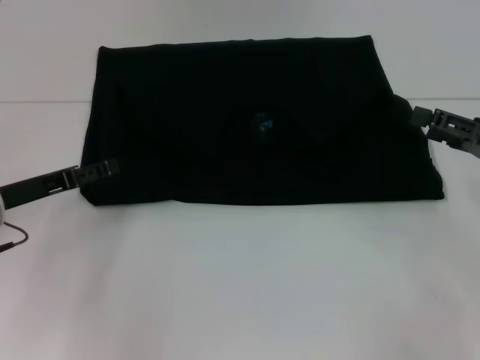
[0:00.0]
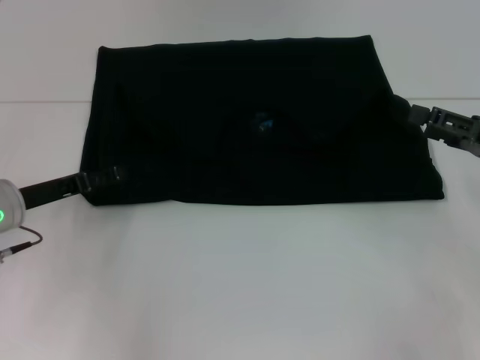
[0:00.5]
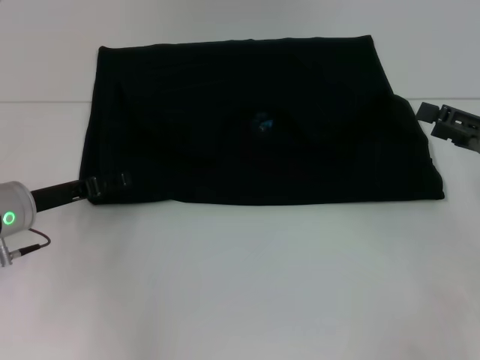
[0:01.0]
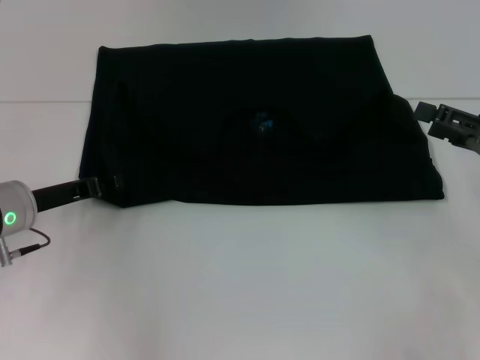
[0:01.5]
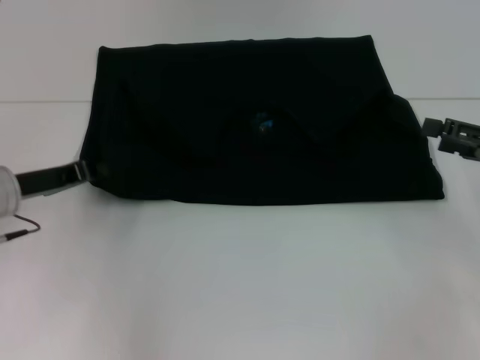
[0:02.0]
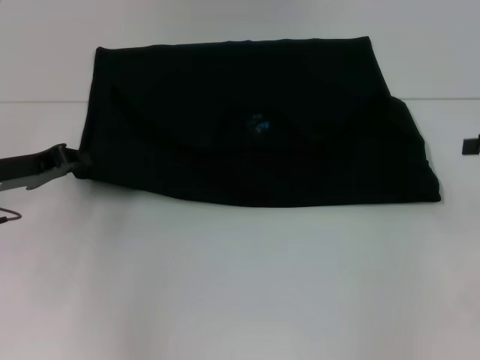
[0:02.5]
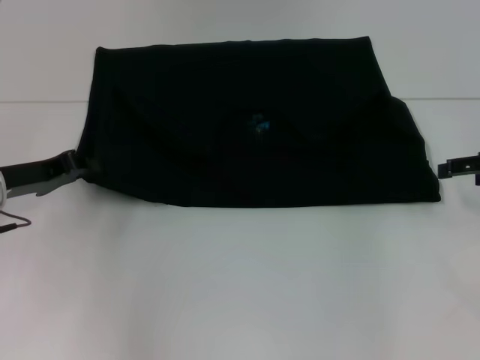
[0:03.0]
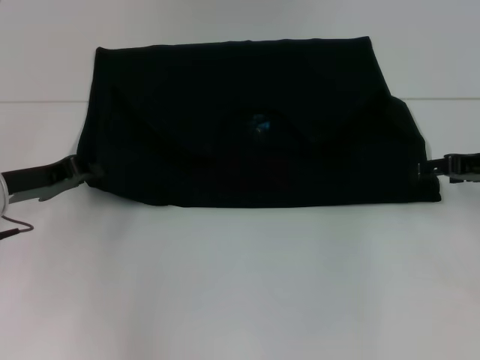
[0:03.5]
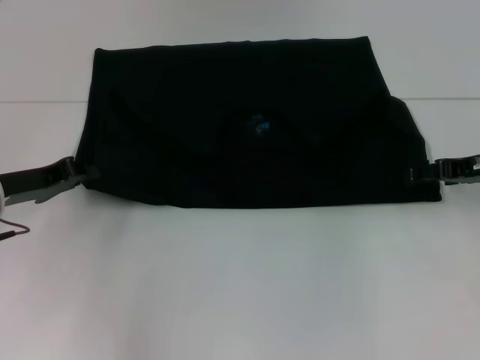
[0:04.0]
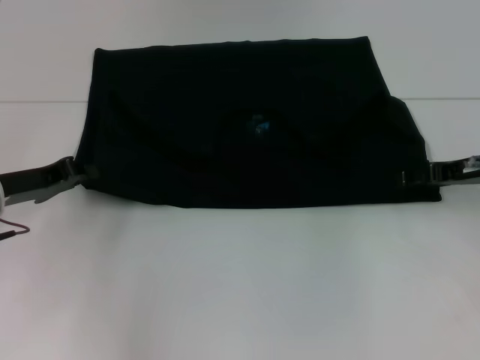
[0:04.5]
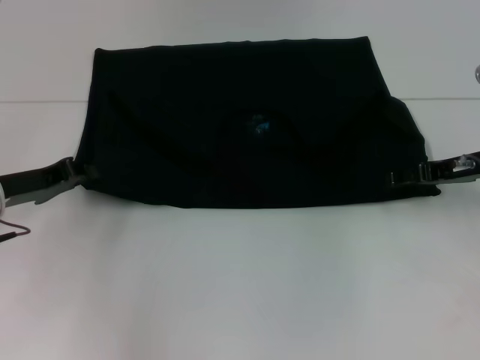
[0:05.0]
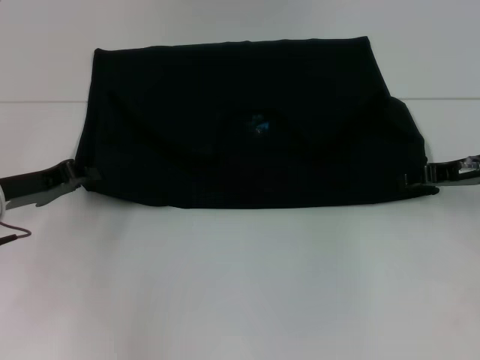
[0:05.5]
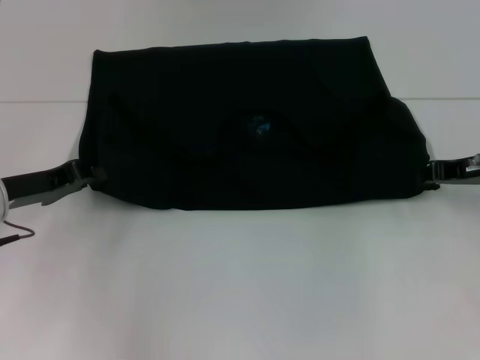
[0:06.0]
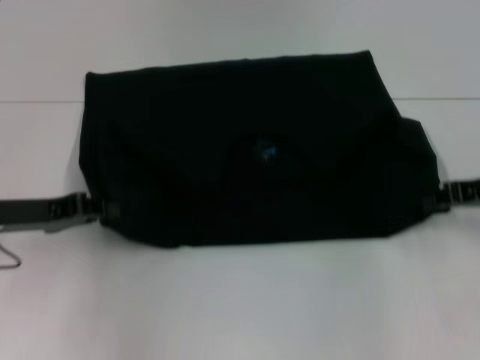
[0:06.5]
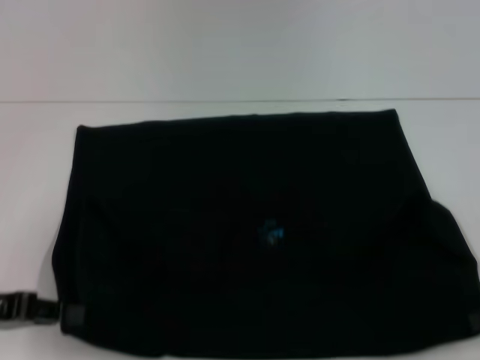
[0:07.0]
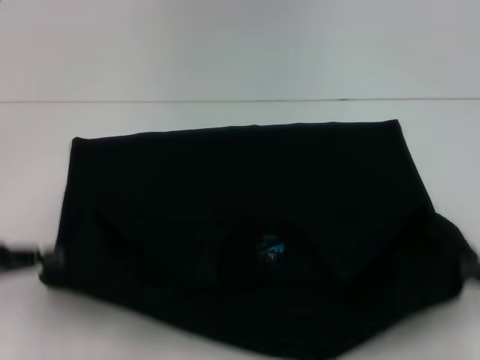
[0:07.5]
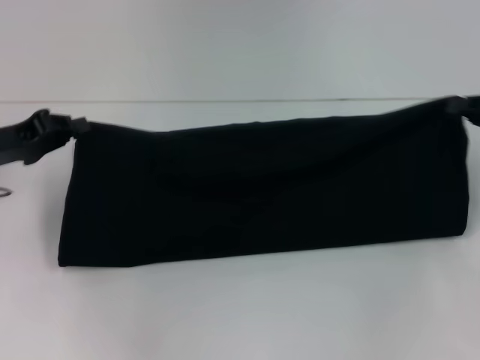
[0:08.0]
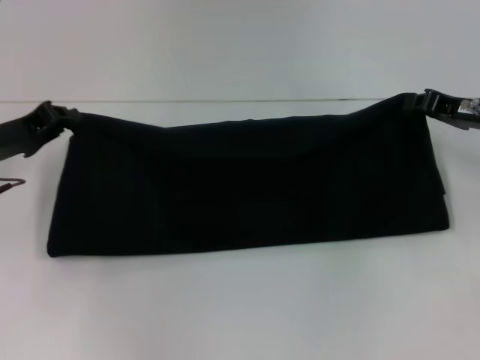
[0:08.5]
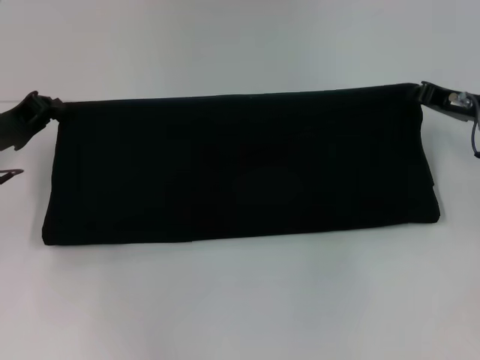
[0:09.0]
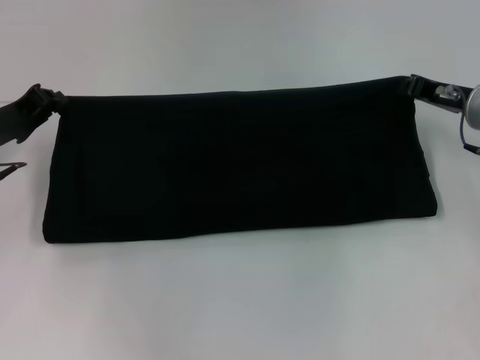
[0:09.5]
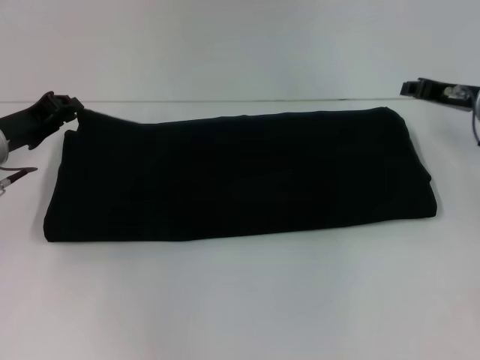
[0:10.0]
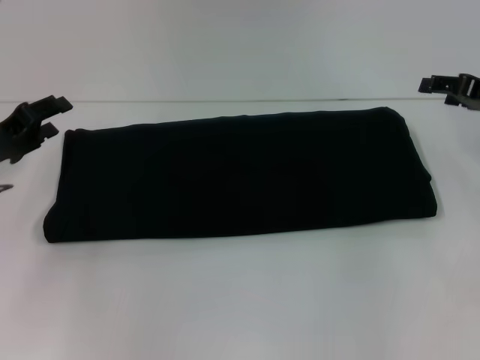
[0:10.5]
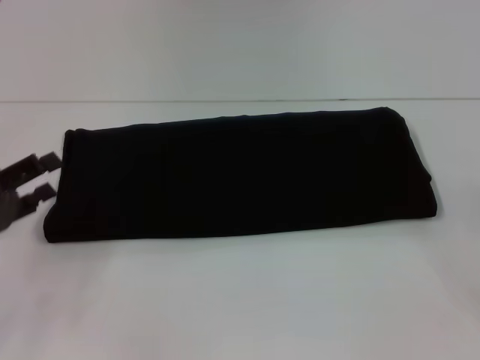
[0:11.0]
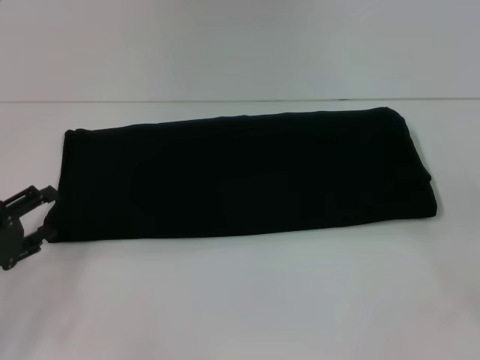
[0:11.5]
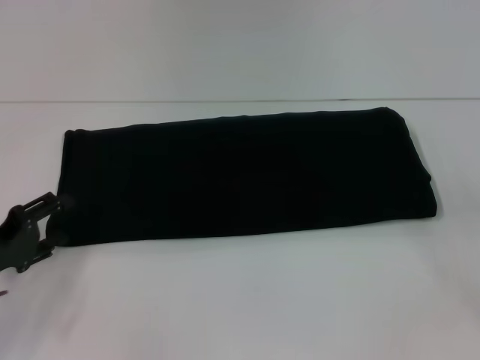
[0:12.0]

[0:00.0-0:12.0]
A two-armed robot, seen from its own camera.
Step, 0:00.0 to 0:07.0: Pull the clothes with your left hand.
Step, 0:00.0 to 0:07.0: Pull the clothes with your right hand.
Step, 0:07.5 to 0:10.0: Fold the clothes with your right hand.
0:00.0 to 0:02.0: The left gripper closes.
0:02.0 to 0:04.0: The right gripper heads forward, covering about 5 cm.
0:04.0 to 0:06.0: The right gripper closes.
0:06.0 to 0:08.0: The right gripper shifts about 5 cm to the right, and moves approximately 15 cm backward and comes back. Meanwhile the left gripper reaches some 10 cm backward, then returns.
0:08.0 to 0:10.0: The right gripper shifts about 10 cm to the left and forward; the left gripper moves approximately 5 cm.
0:10.0 to 0:12.0: The right gripper travels backward and to the right by about 20 cm, and opens its fingers. The left gripper heads backward and downward, covering approximately 15 cm, and opens up.

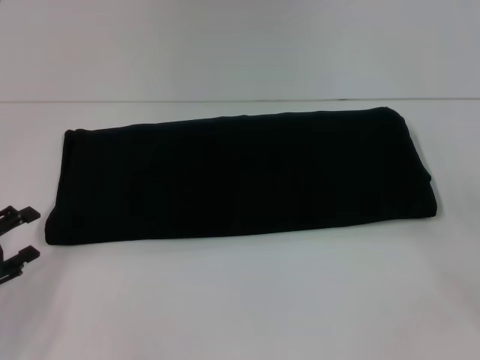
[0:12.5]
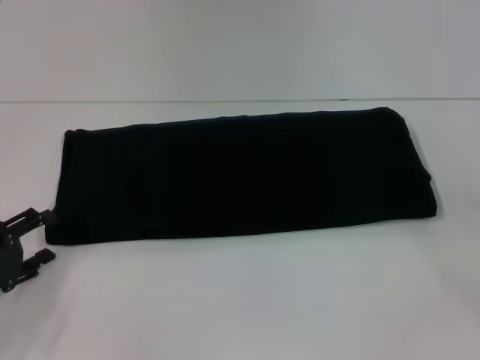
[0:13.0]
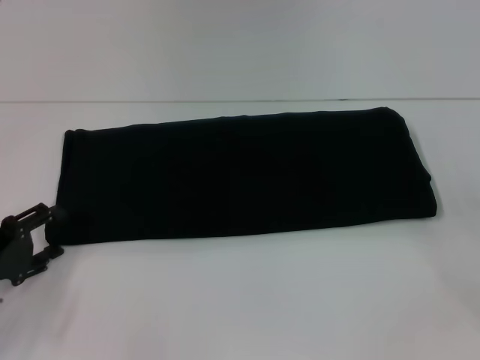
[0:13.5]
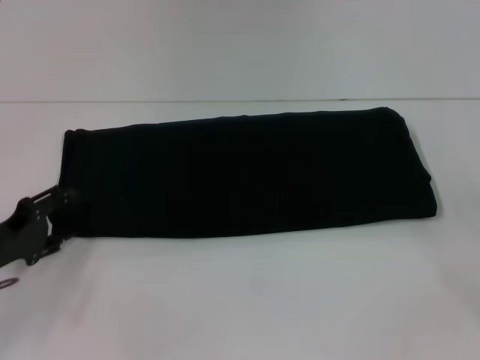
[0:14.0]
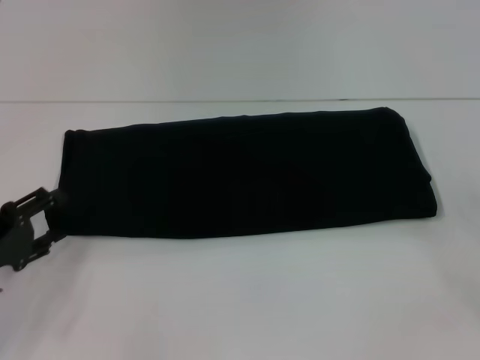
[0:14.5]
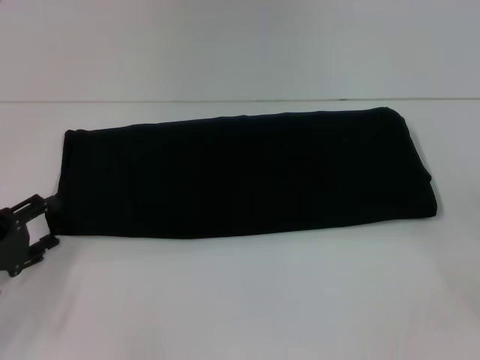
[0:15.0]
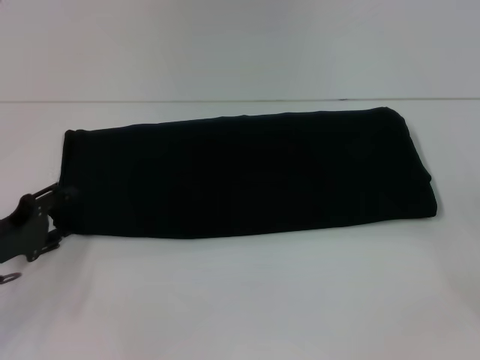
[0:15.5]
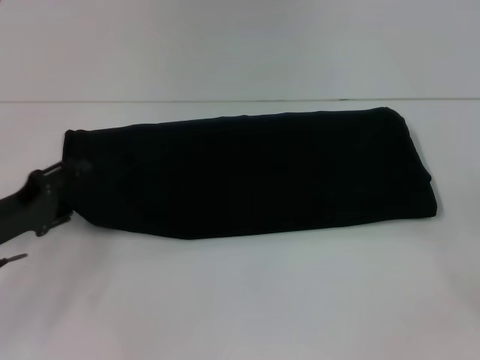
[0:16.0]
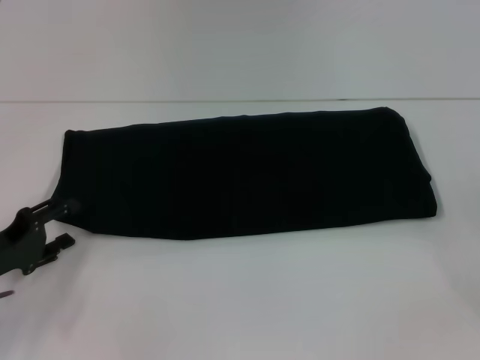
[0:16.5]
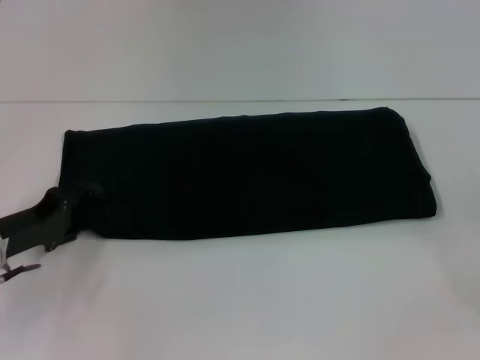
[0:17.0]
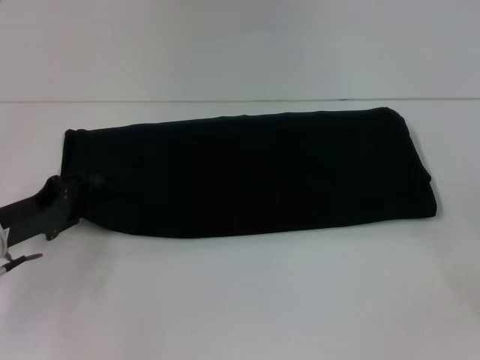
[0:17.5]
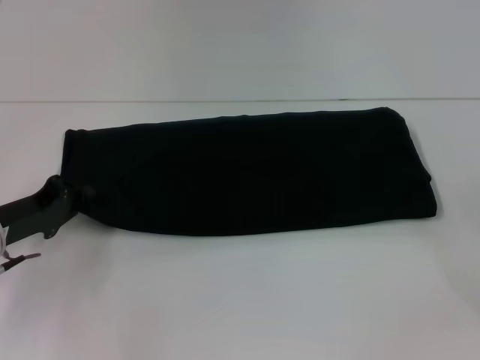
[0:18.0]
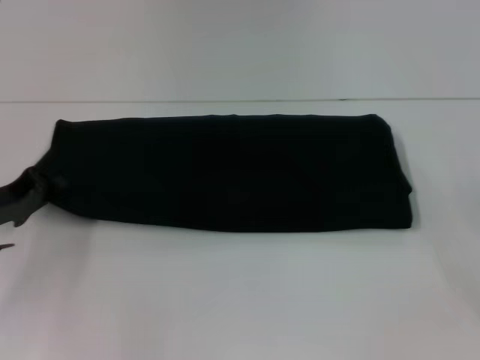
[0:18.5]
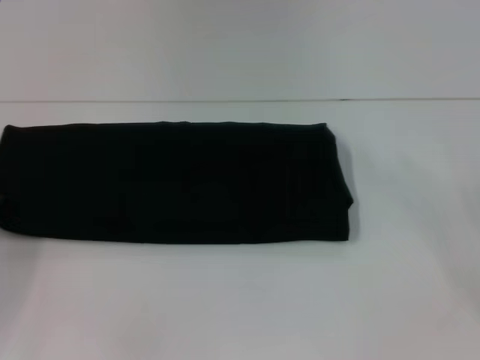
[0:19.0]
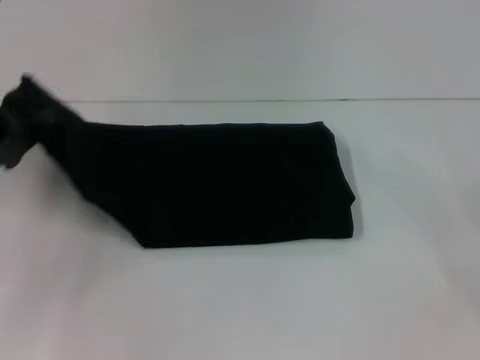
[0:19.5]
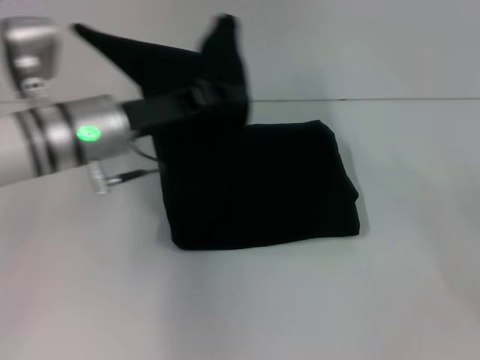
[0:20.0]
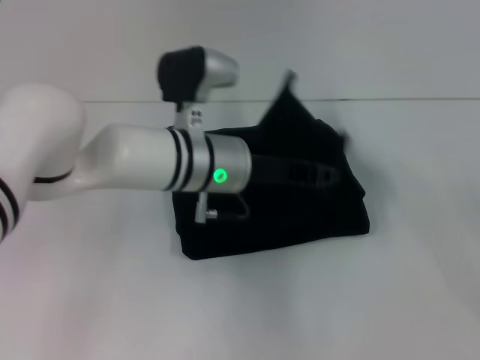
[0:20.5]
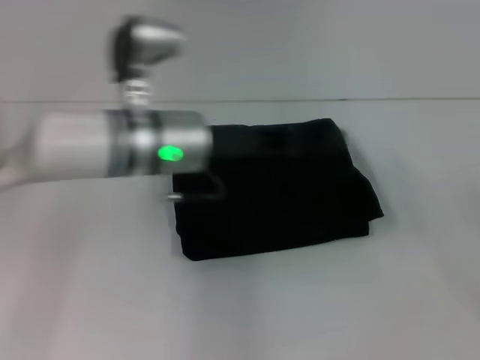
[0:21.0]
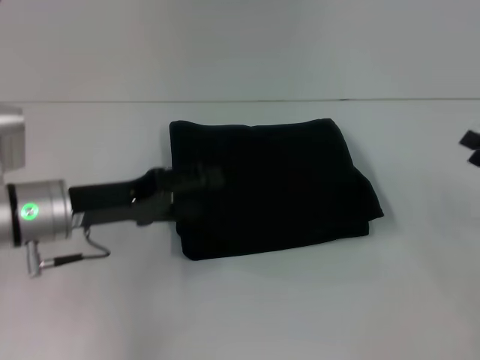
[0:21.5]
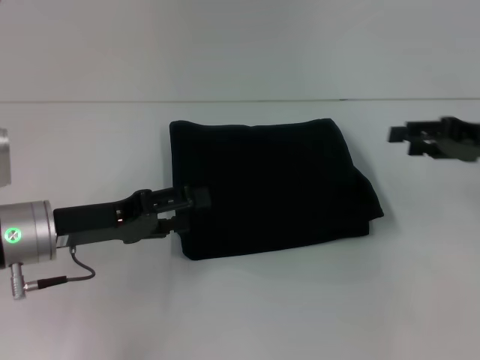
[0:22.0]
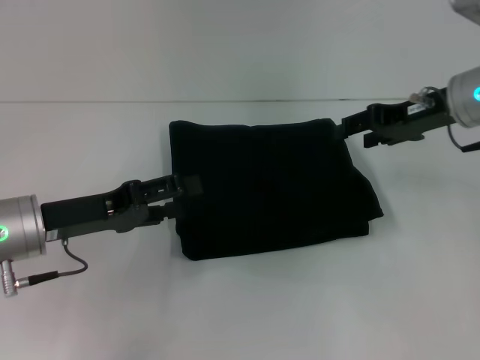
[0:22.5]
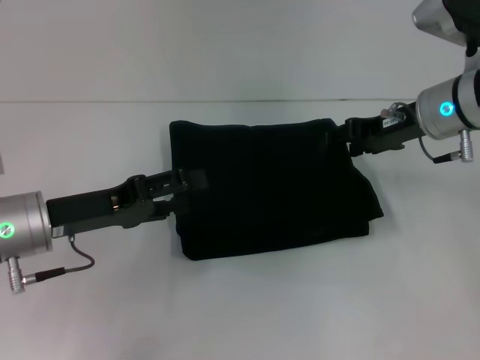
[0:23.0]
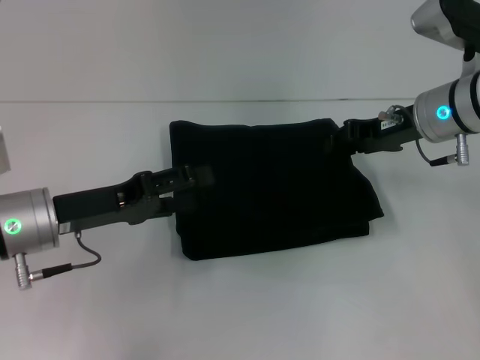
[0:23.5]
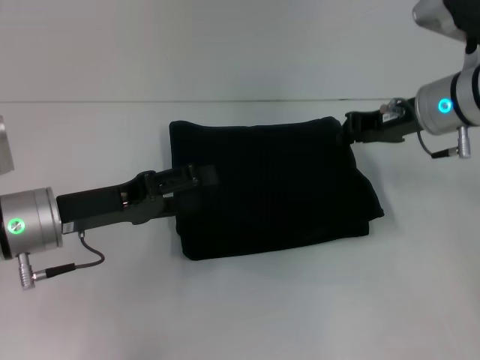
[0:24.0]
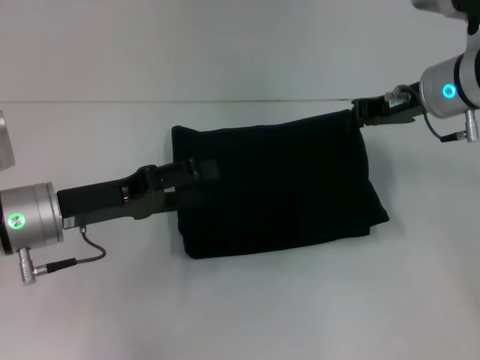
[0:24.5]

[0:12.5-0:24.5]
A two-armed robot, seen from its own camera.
Step, 0:12.5 to 0:20.5: Fold the clothes with your left hand.
0:14.5 to 0:16.5: The grippers stay close to where they were, moving slightly.
0:16.5 to 0:18.5: The left gripper goes roughly 5 cm forward, and closes up.
0:18.5 to 0:20.5: The left gripper is displaced to the right by approximately 25 cm.
0:20.5 to 0:22.5: The left gripper goes some 20 cm to the left and backward, and opens its fingers, while the right gripper heads to the left, forward and upward, covering roughly 25 cm.
0:22.5 to 0:24.5: The right gripper closes up.

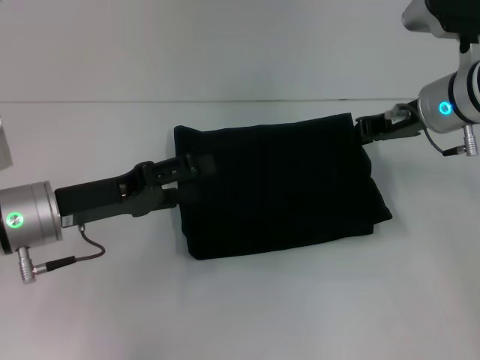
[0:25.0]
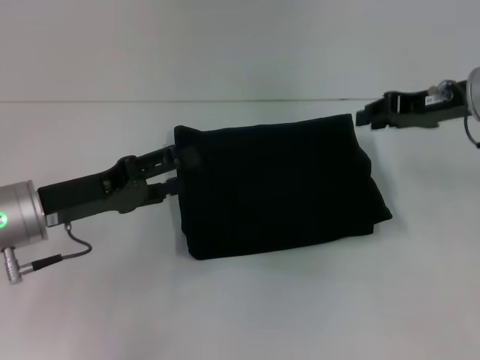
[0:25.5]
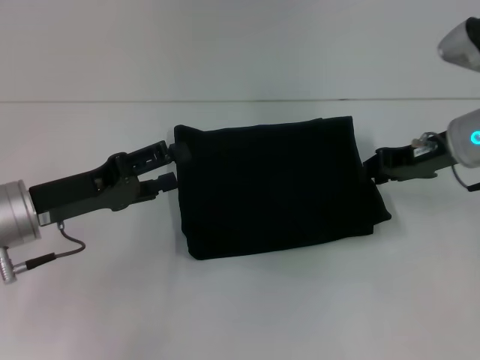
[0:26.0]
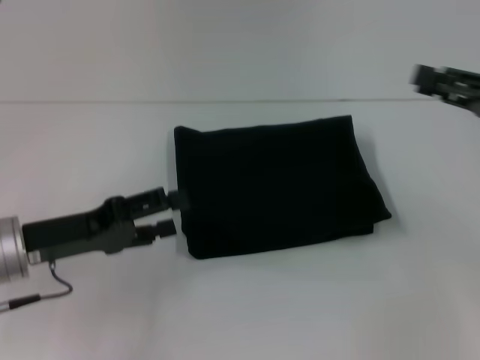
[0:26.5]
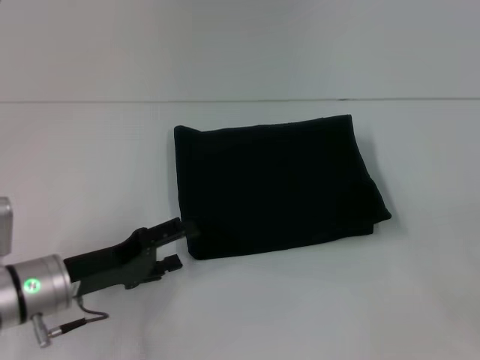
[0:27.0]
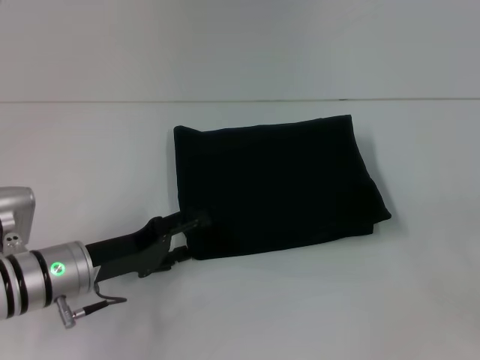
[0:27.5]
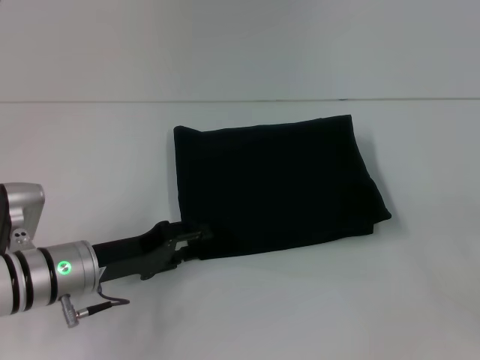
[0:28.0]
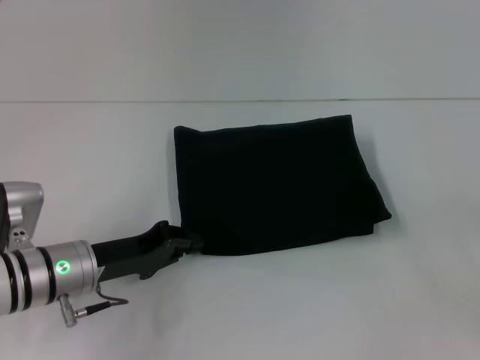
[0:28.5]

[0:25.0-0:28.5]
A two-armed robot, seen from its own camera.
0:25.0 to 0:27.0: The left gripper travels downward by approximately 5 cm. The right gripper is displaced backward and to the right by some 25 cm, and opens its fingers.
0:27.0 to 0:28.5: The left gripper closes its fingers.
